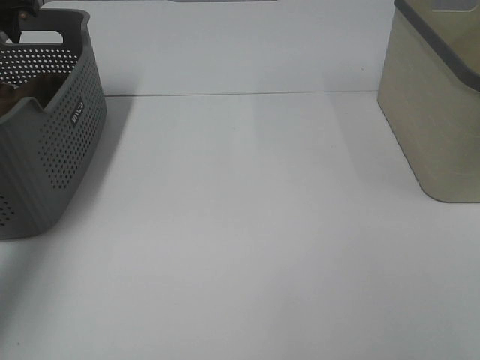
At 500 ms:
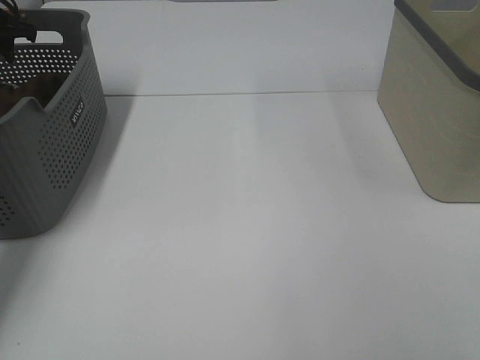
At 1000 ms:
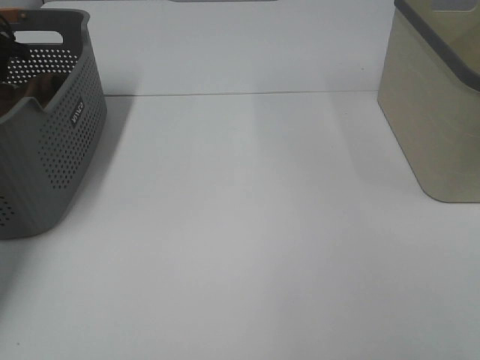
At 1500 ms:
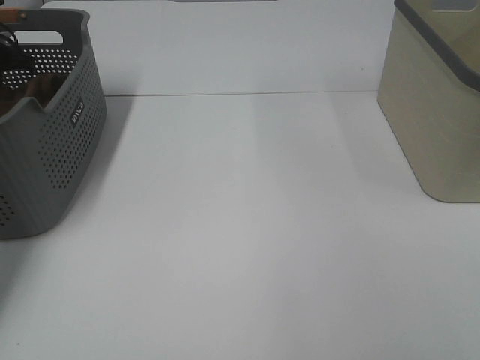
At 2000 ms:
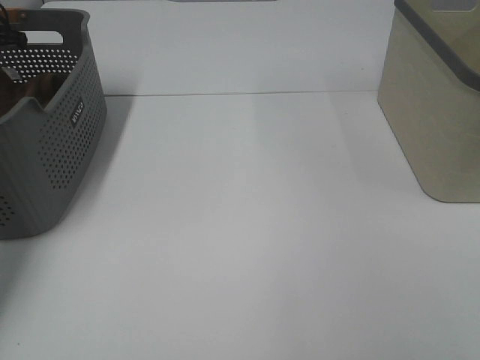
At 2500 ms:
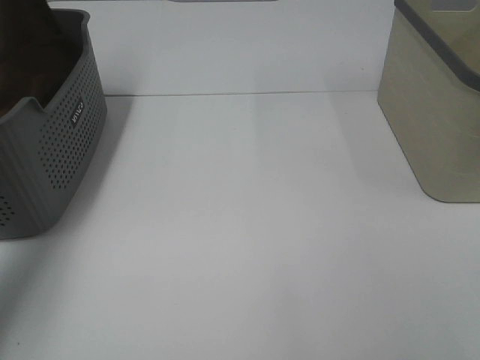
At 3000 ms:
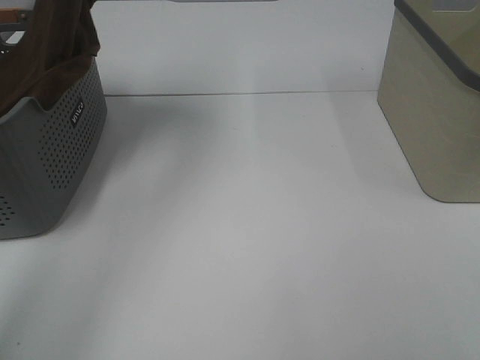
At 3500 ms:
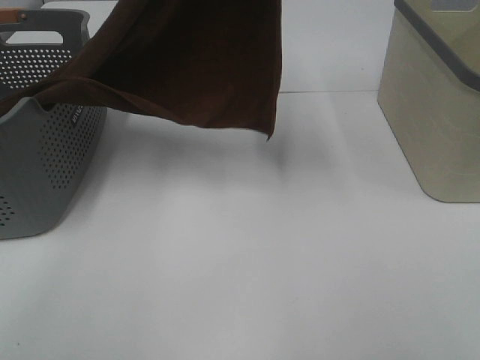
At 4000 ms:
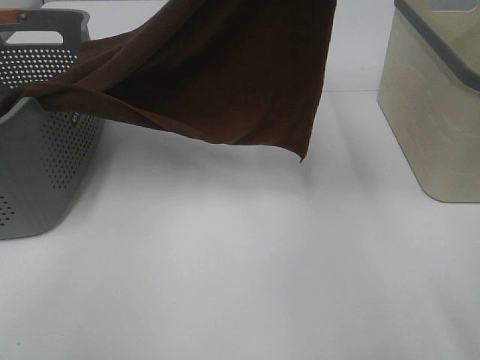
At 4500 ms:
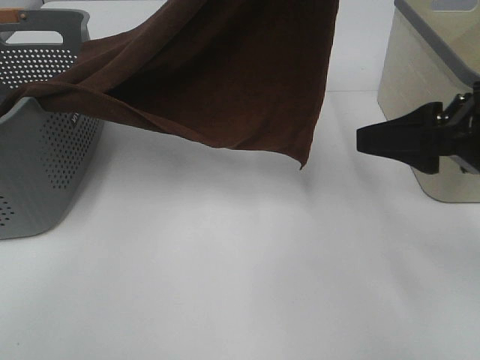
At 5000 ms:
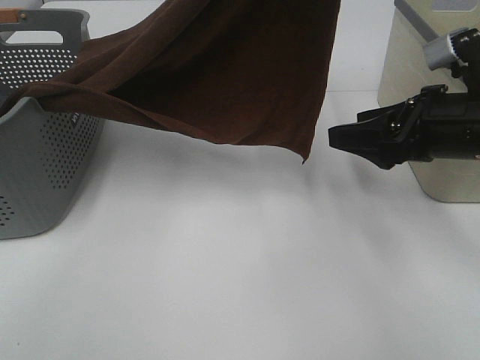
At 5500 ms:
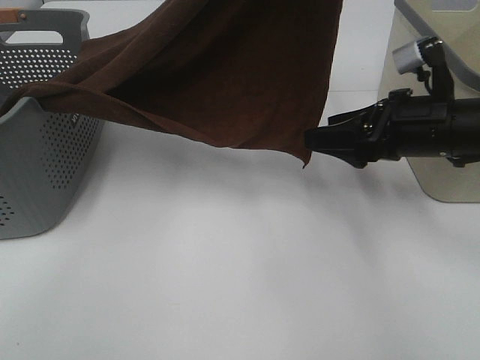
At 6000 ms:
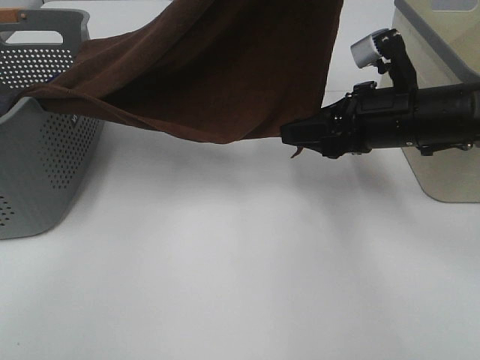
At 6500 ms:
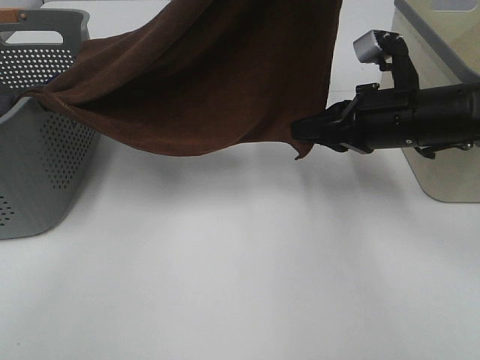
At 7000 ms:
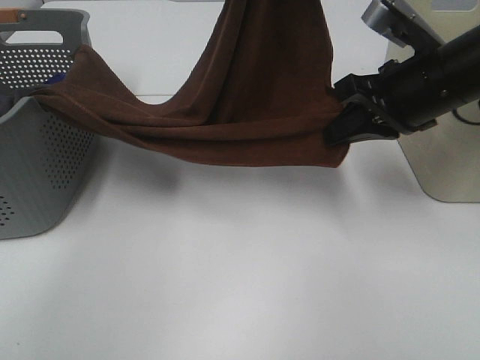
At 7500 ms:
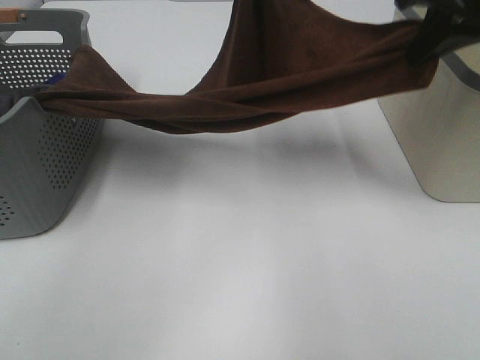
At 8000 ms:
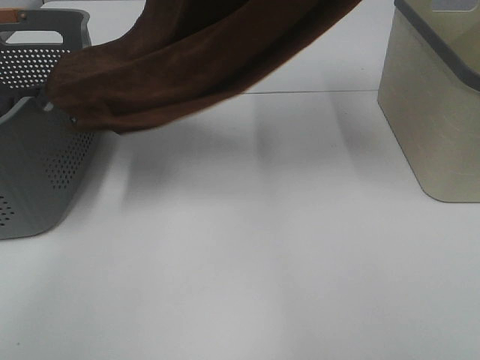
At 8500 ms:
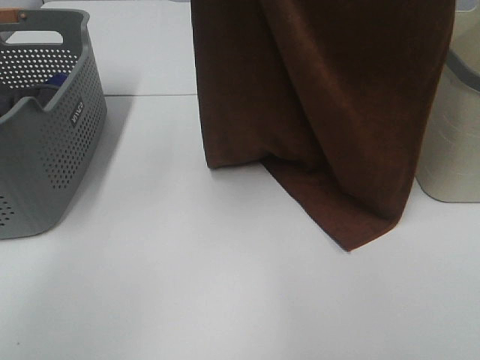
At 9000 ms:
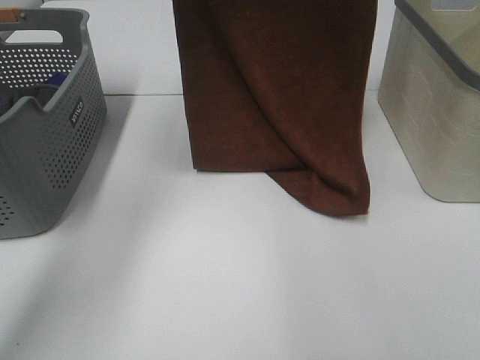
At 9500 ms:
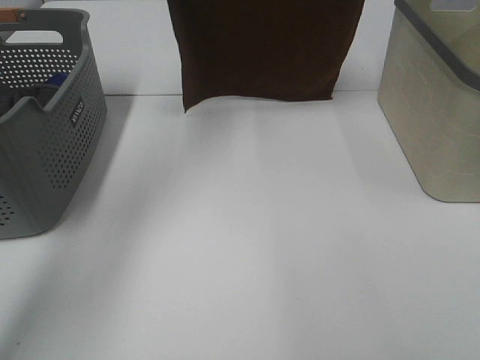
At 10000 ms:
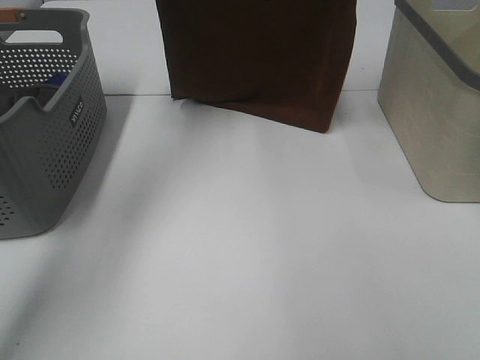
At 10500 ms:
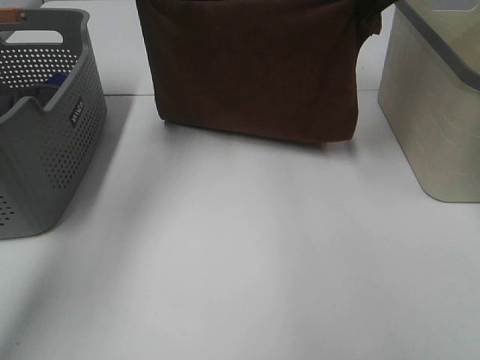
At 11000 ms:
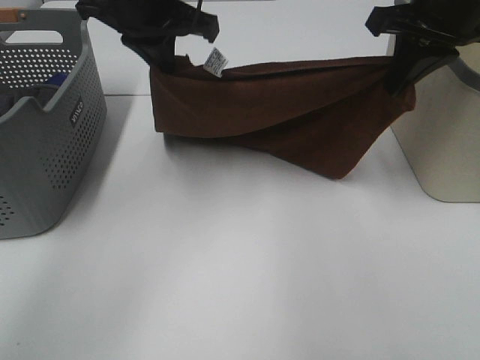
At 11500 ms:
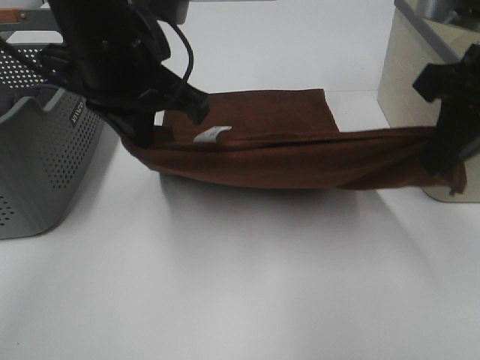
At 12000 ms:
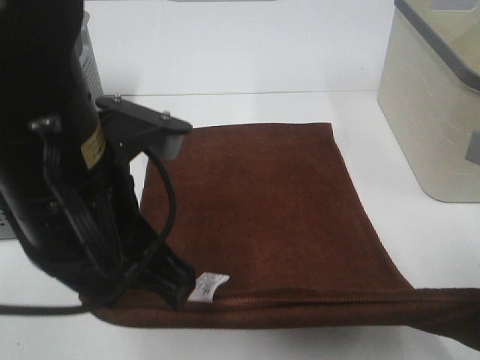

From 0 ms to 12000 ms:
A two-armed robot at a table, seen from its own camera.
Task of the whole recording: Remove the towel and place it.
Step, from 2500 ms to 5500 ms: Right hand: grab a corner of the brown towel and straighten it.
Step, from 6000 ms to 9000 ms: Left hand: spread the brown towel flat on the table.
Step, from 6000 ms to 9000 ms: Right hand: spread the brown towel flat on the table.
From 0 ms to 2000 ms: The left gripper shifts some 10 cm to the left and downward, and closes up.
From 2000 ms to 4000 ms: The right gripper heads forward, covering approximately 10 cm; the left gripper travels to the right, upward and backward by approximately 50 cm.
From 4000 ms to 6000 ms: The right gripper shifts approximately 25 cm forward and downward.
From 6000 ms to 8000 ms: The right gripper heads upward, covering some 35 cm, and closes its fingers. The left gripper goes about 10 cm to the left and upward.
From 8000 ms to 10000 ms: The left gripper travels downward, forward and to the left by about 25 cm; the right gripper shifts some 20 cm forward and downward.
From 10000 ms to 12000 ms: The right gripper travels backward and downward by approximately 35 cm, while the left gripper goes some 35 cm backward.

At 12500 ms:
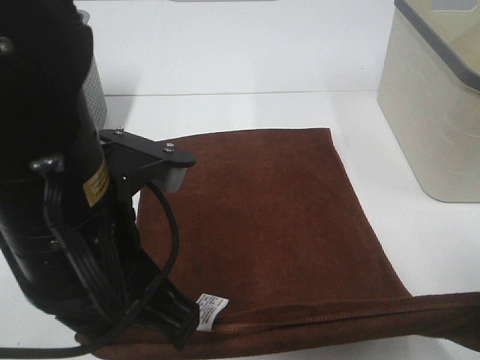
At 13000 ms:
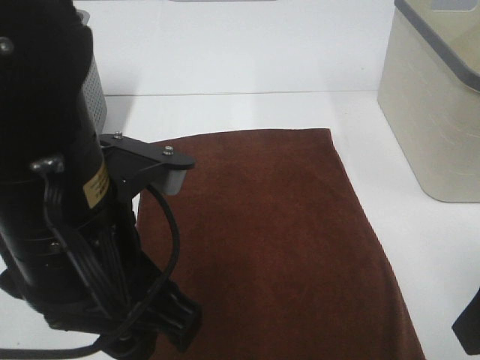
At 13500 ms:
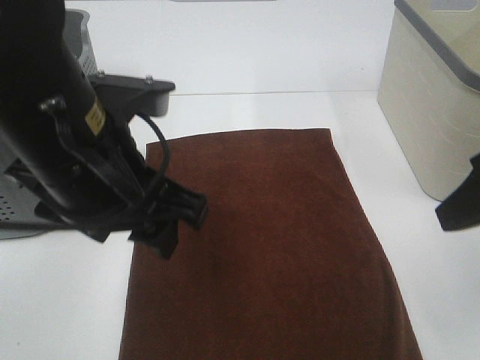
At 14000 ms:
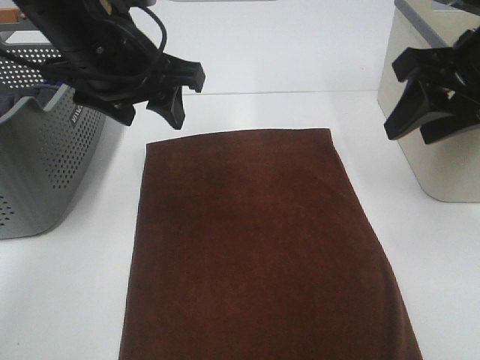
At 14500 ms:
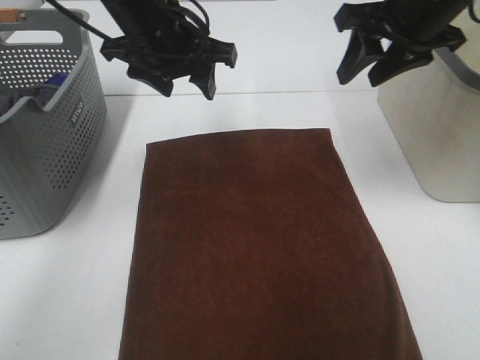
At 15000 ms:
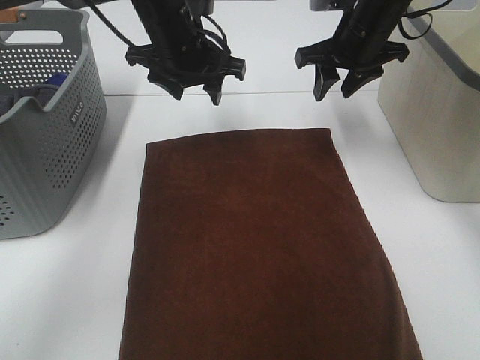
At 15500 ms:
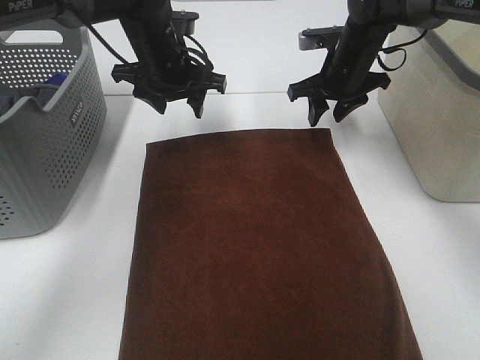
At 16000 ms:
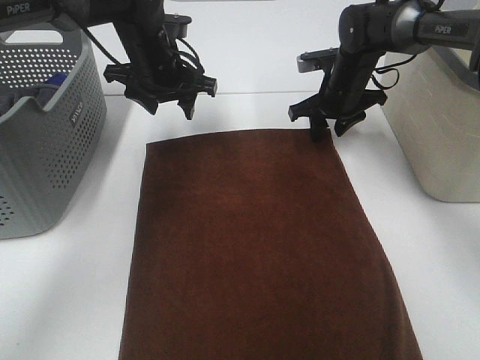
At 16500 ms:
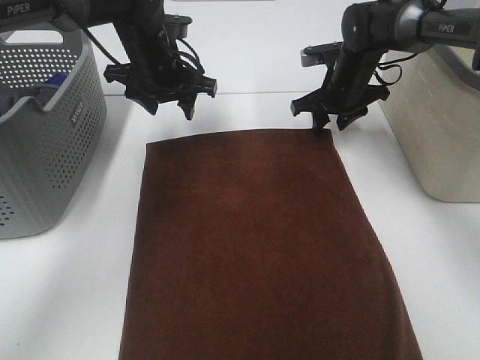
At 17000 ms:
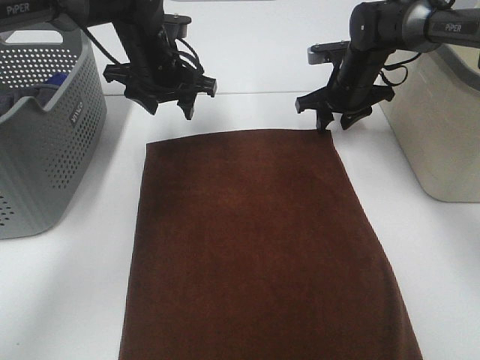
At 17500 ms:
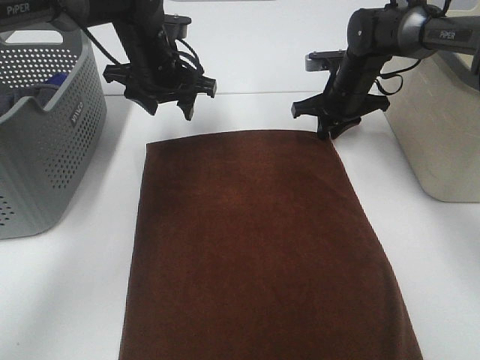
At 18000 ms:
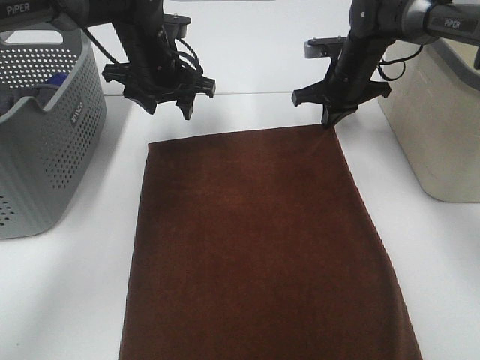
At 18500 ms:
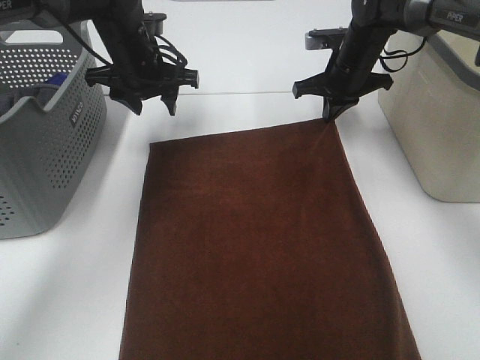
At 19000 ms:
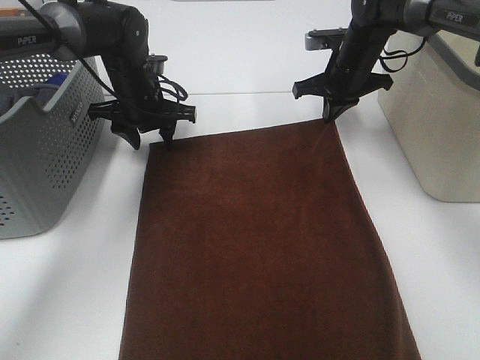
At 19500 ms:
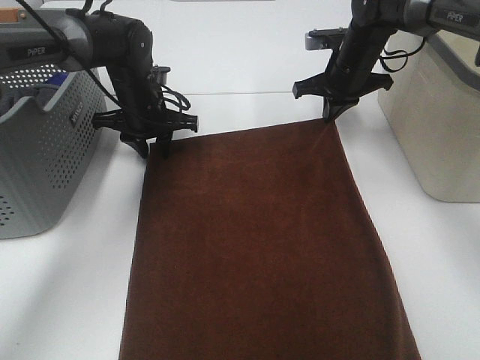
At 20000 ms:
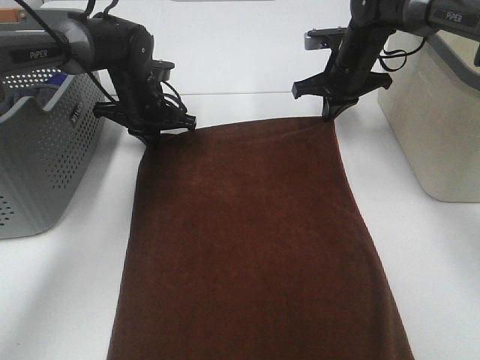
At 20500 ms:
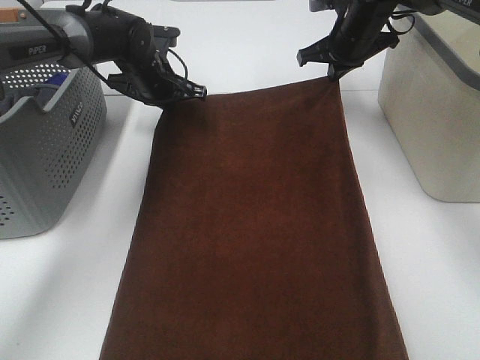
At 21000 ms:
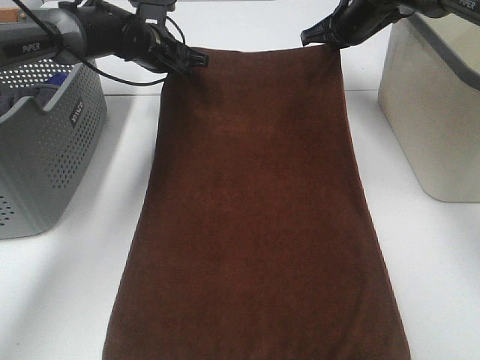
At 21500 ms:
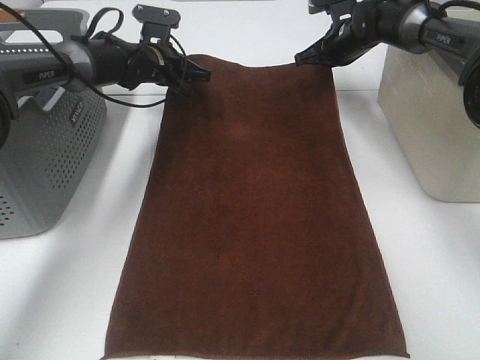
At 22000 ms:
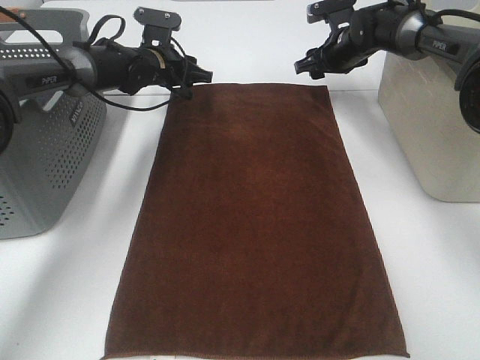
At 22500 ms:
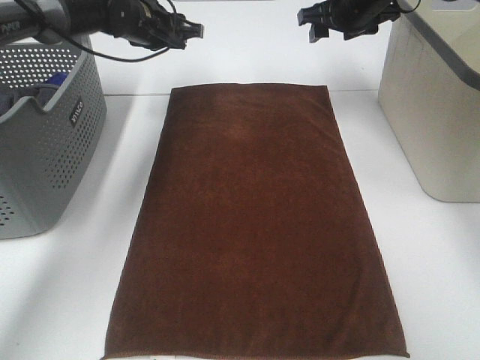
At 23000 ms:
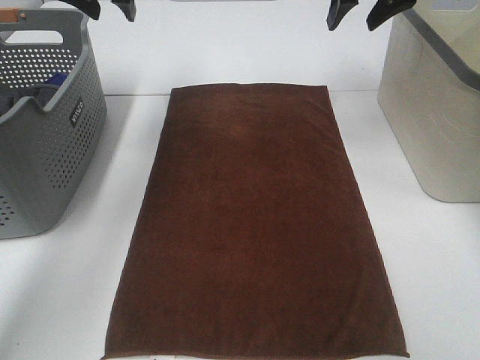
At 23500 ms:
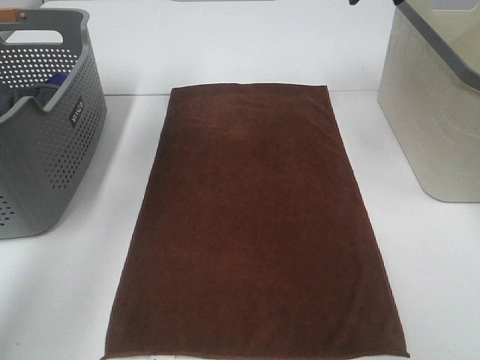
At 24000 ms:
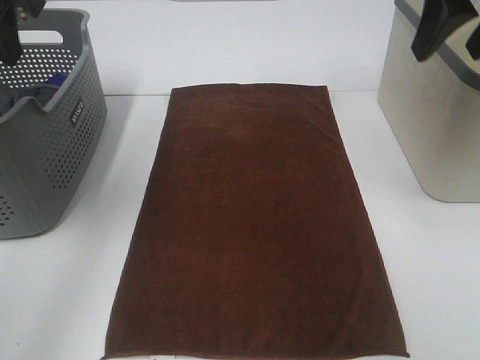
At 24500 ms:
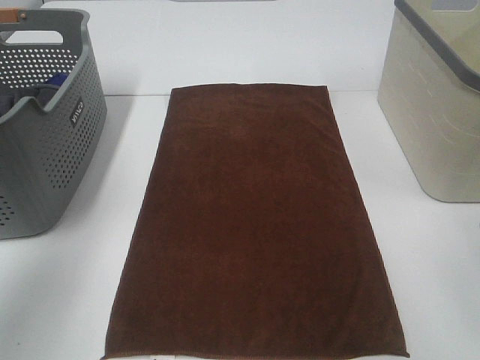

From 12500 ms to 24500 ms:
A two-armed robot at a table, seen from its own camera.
Task of the whole recording: Remove the towel and place it.
Step, from 12500 ms to 16500 ms: Left hand:adjust the brown towel.
Step, from 12500 ms to 16500 ms: Right hand:adjust the brown towel.
From 12500 ms to 14500 ms: The grippers both shift forward by roughly 25 cm. The right gripper opens its fingers. The left gripper opens.
From 14500 ms to 16500 ms: The right gripper is displaced downward and forward by roughly 20 cm, while the left gripper heads forward and downward, covering about 10 cm.
From 16500 ms to 18500 ms: The right gripper closes up.
From 18500 ms to 20500 ms: The left gripper shifts by about 5 cm, and closes.
From 20500 ms to 22500 ms: The left gripper moves upward, some 5 cm, and opens up. Meanwhile the right gripper opens.
From 22500 ms to 24500 ms: Both grippers move backward, about 35 cm.
